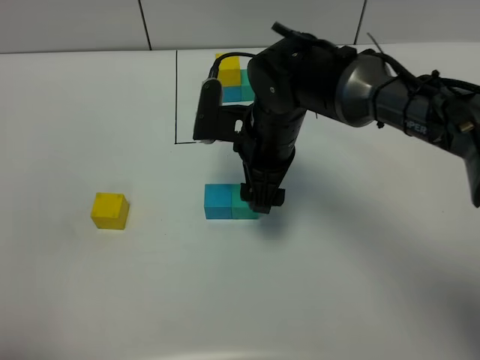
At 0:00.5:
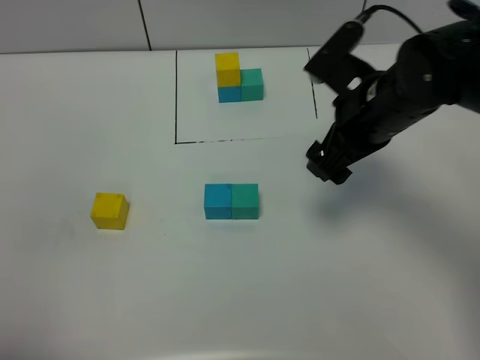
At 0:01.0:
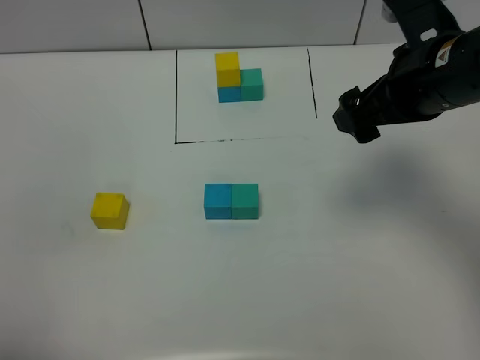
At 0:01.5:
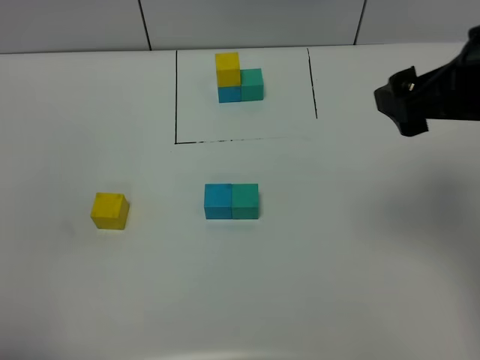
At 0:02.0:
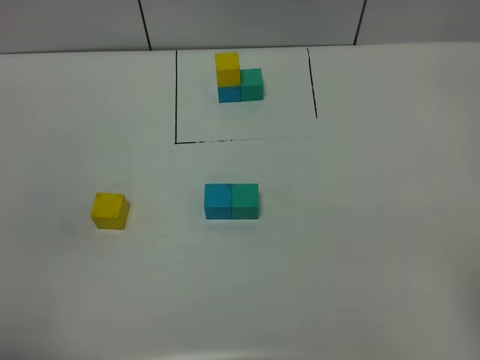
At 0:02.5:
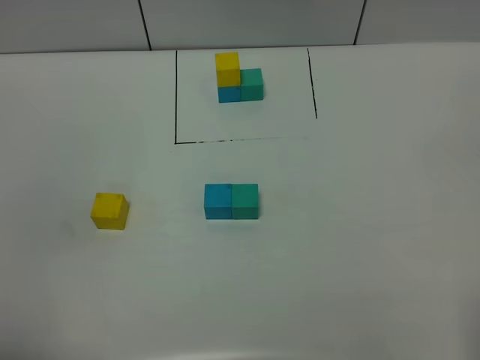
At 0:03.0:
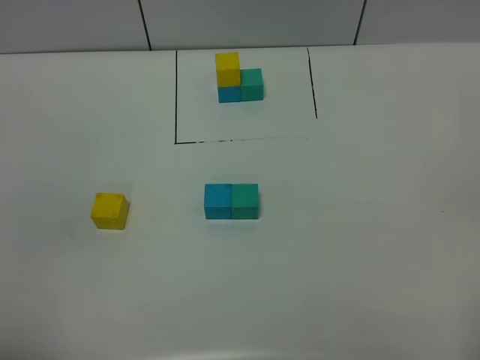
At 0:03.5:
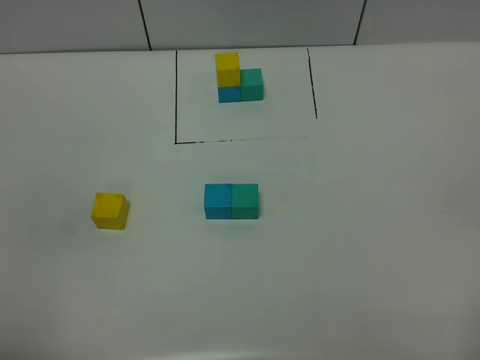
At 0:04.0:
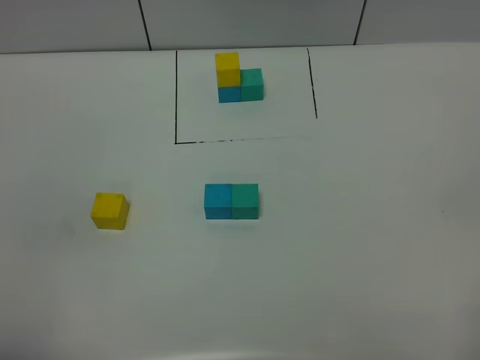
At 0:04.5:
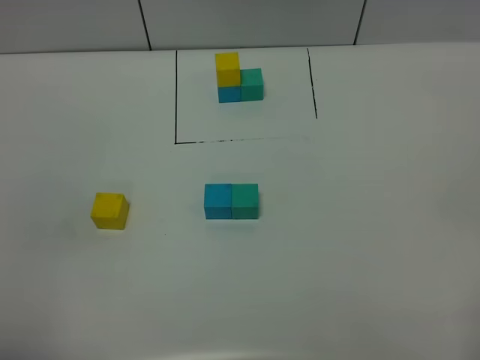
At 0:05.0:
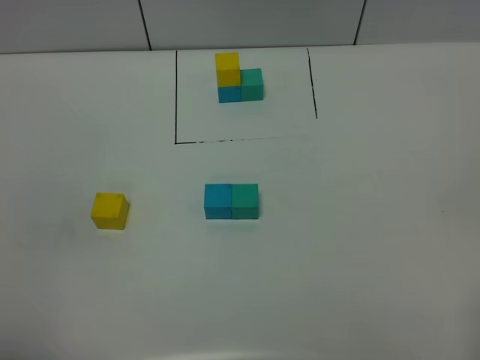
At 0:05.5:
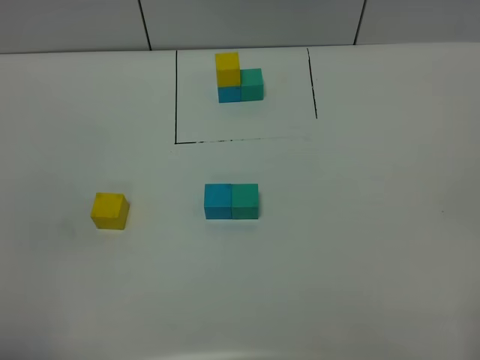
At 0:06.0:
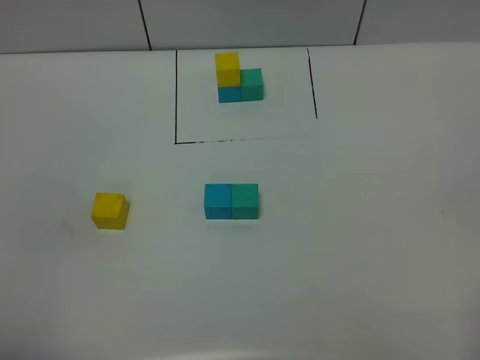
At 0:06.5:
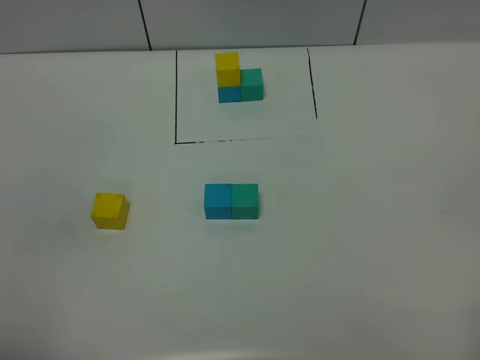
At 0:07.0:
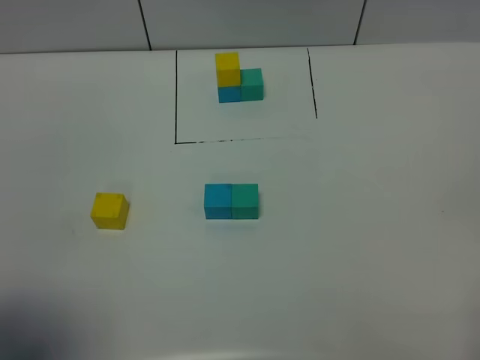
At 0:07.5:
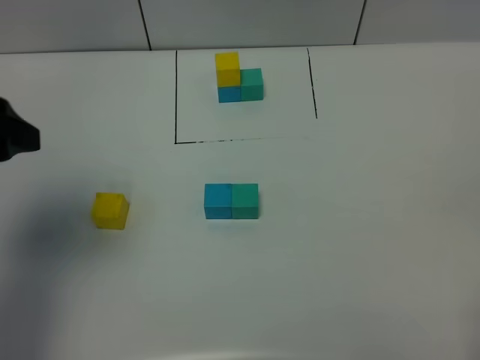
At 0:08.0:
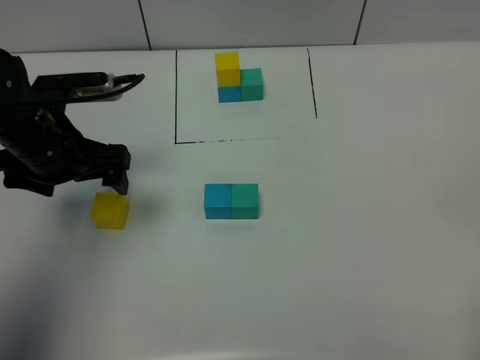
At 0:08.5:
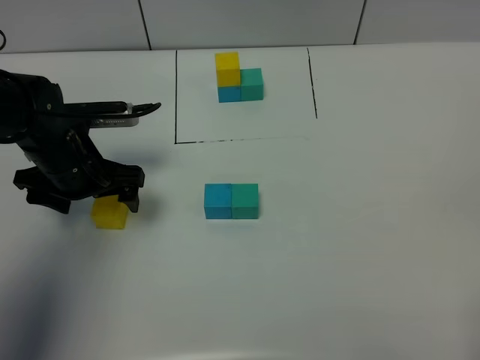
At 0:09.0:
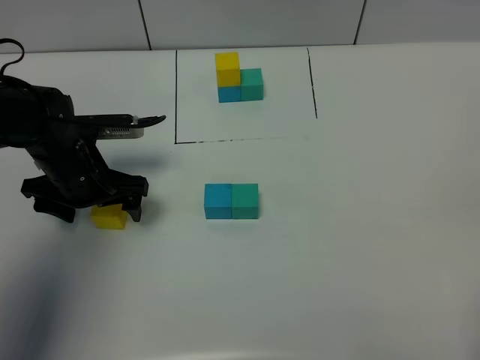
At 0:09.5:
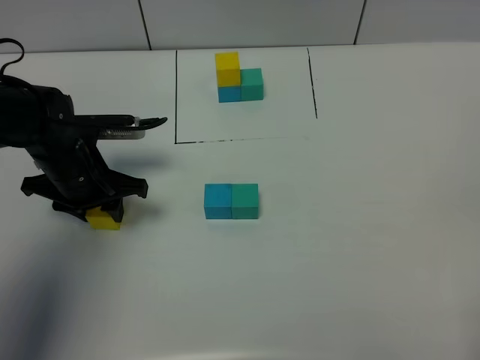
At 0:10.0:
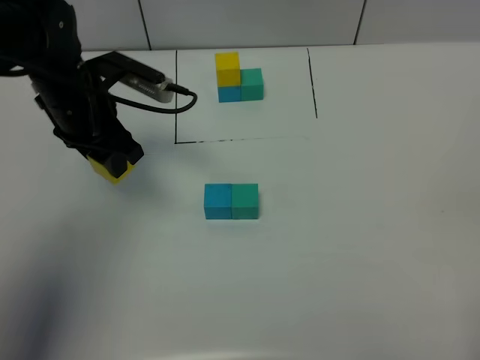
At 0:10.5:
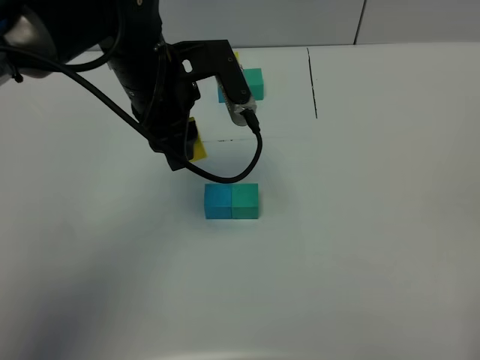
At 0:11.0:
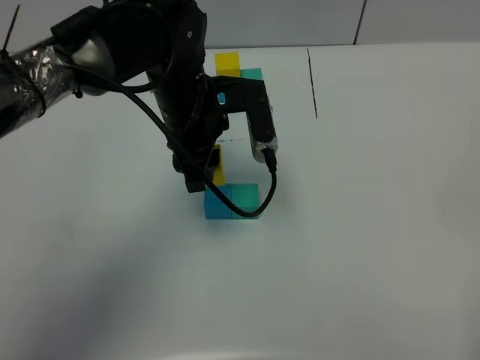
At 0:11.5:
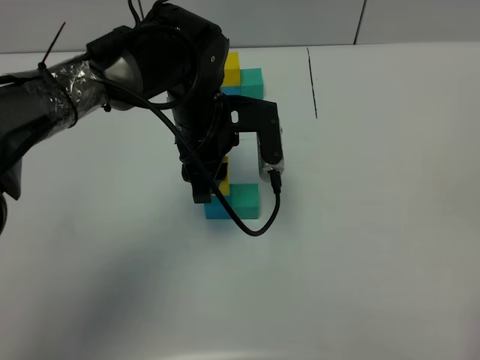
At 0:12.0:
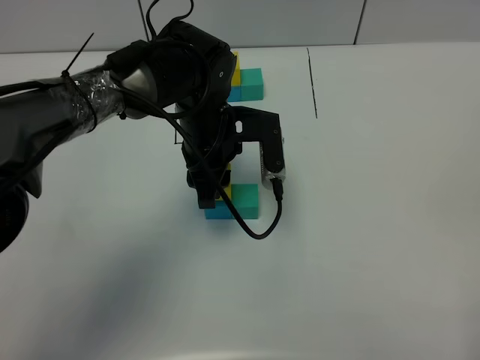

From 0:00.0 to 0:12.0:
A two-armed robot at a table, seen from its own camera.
Task of the whole recording: According to the building block template in front, assemble the scattered blocks together.
From 0:00.0 to 0:02.0: The right gripper is displaced backward, to the right and upward by approximately 40 cm.
From 0:06.0 to 0:08.0: The left gripper shifts approximately 30 cm forward.
From 0:08.0 to 0:10.0: The left gripper heads forward, covering roughly 5 cm, goes downward and returns, approximately 5 cm each way, and closes up.
From 0:10.0 to 0:12.0: The left gripper moves to the right, roughly 15 cm.

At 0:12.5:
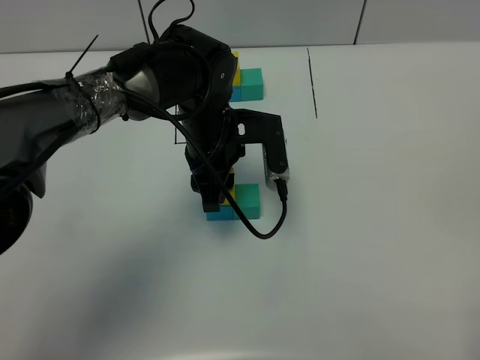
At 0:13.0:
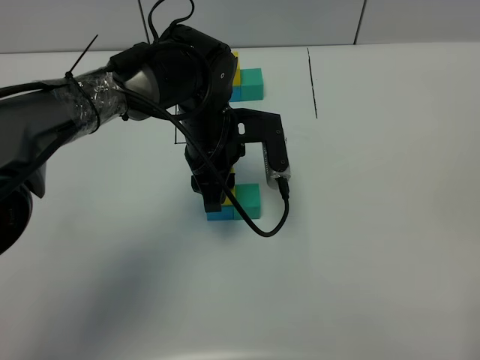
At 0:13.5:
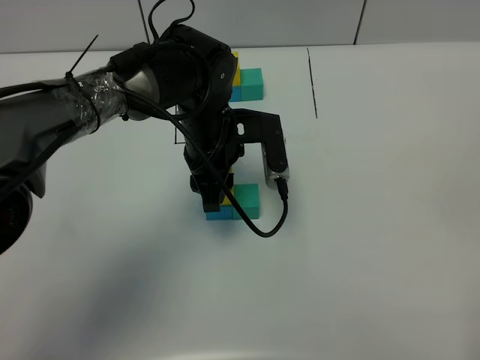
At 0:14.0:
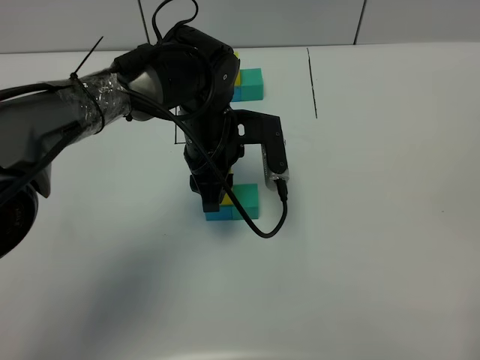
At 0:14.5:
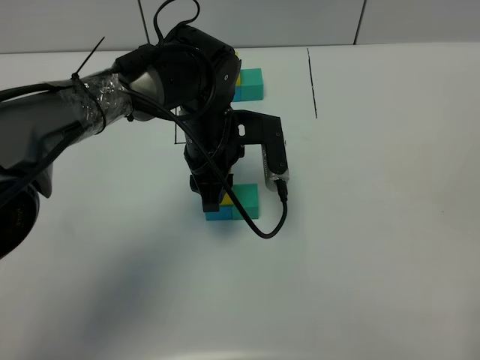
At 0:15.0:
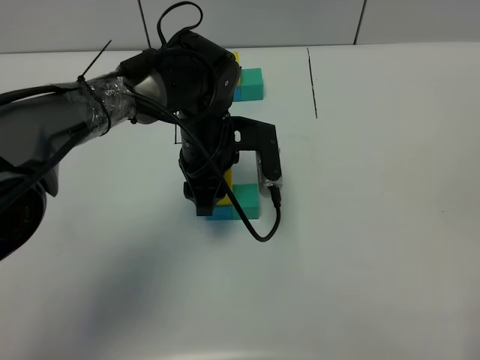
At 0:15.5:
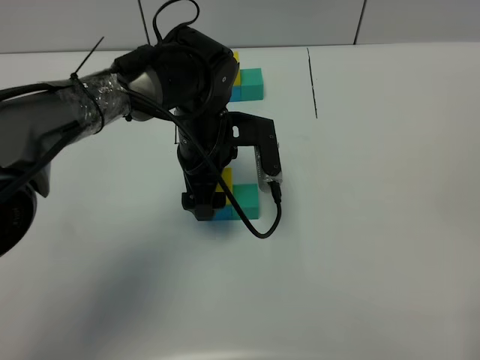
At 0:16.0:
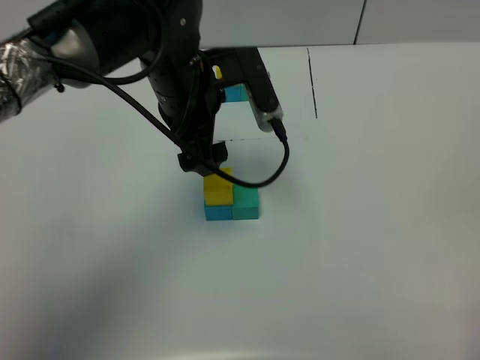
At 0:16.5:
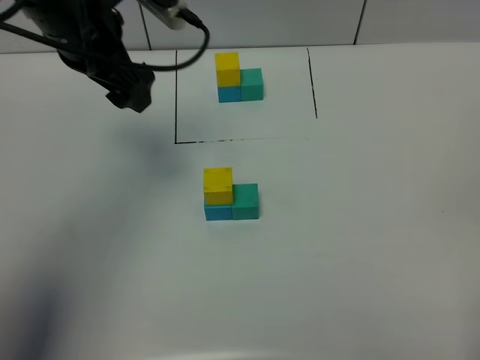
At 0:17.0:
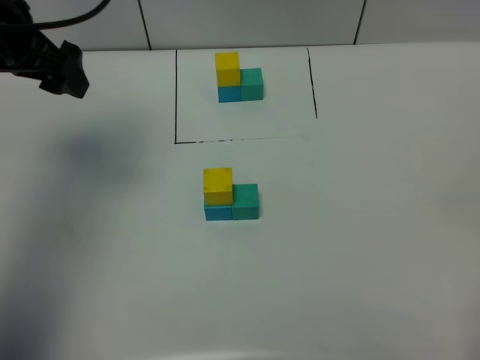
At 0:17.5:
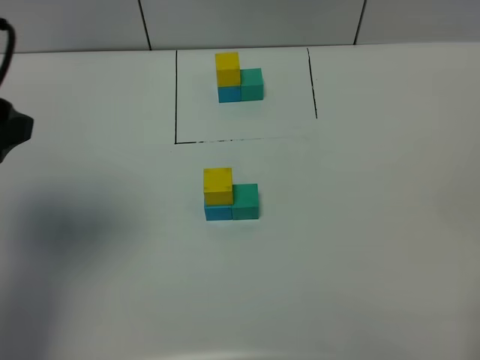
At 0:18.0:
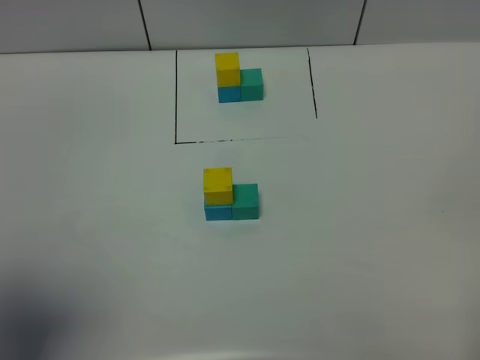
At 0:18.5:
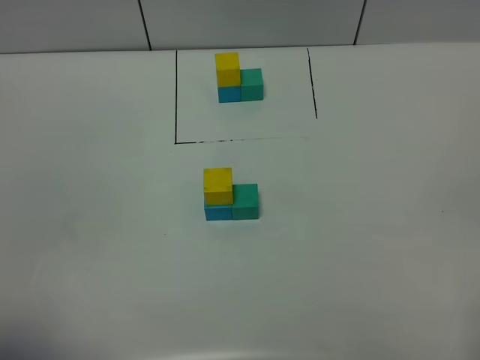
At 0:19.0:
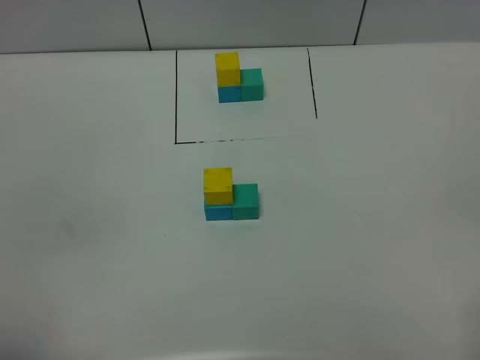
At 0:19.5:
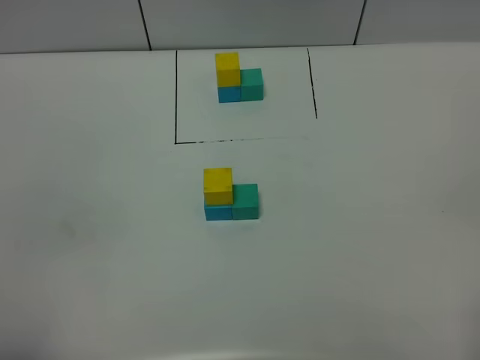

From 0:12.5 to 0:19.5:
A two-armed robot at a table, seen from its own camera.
Task of the whole recording: According to the building block template in front, assemble the scattered blocks together.
Step, from 0:12.5 to 0:15.0: Put the yellow build block on the blue build block.
From 0:12.5 to 0:14.5: Neither gripper changes place.
From 0:14.5 to 0:16.0: The left gripper moves upward, about 10 cm, and opens its fingers.
From 0:16.0 to 0:17.5: The left gripper is displaced to the left, backward and upward by some 25 cm.
From 0:17.5 to 0:19.5: The left gripper goes some 20 cm backward, and closes up.

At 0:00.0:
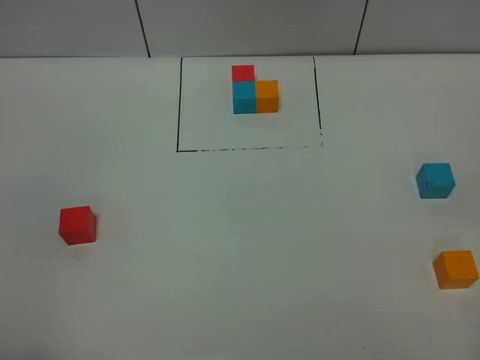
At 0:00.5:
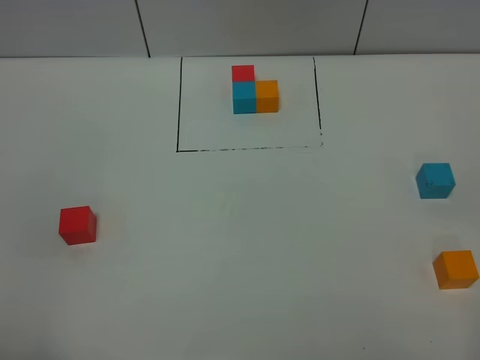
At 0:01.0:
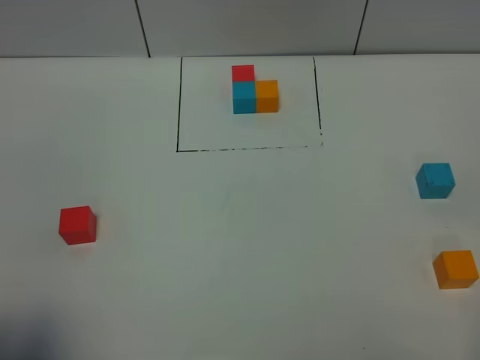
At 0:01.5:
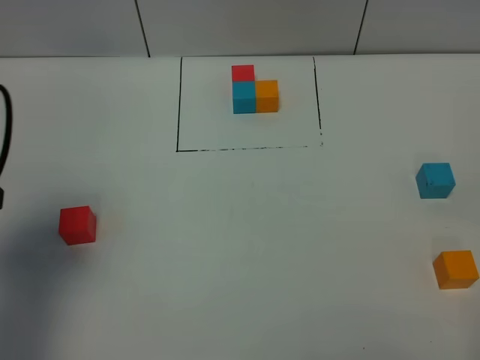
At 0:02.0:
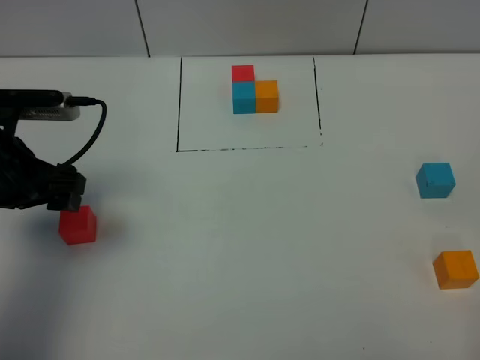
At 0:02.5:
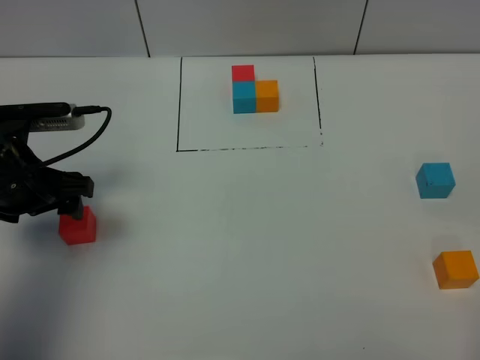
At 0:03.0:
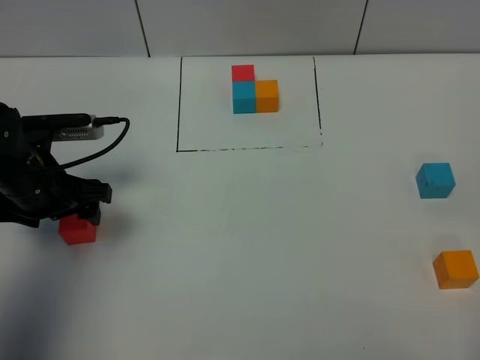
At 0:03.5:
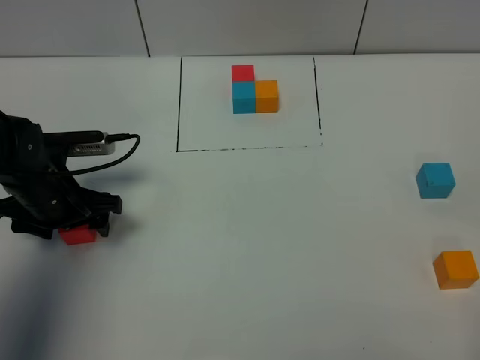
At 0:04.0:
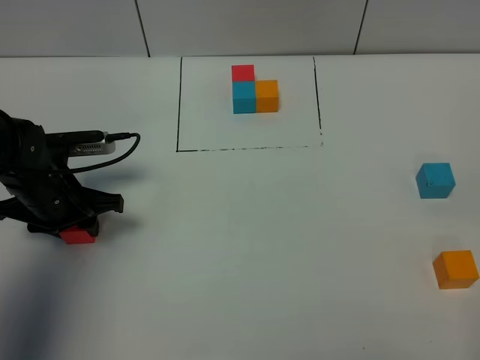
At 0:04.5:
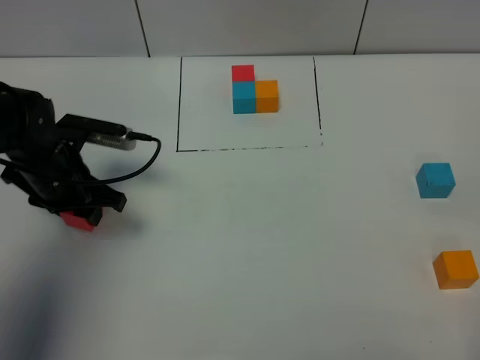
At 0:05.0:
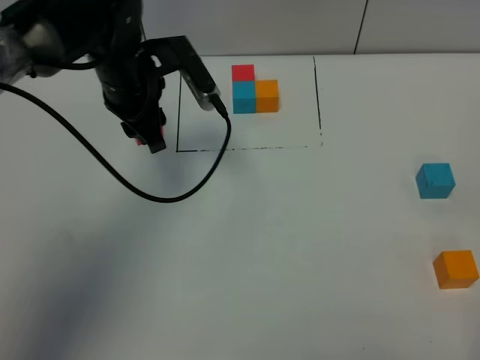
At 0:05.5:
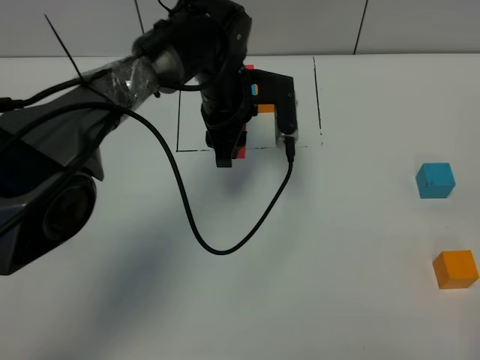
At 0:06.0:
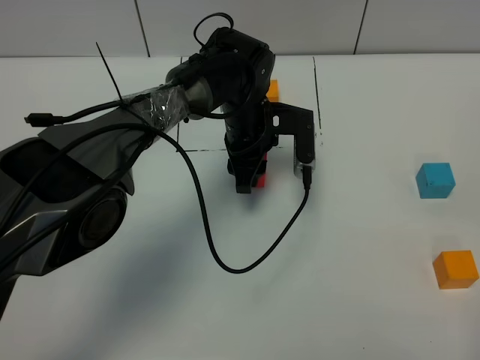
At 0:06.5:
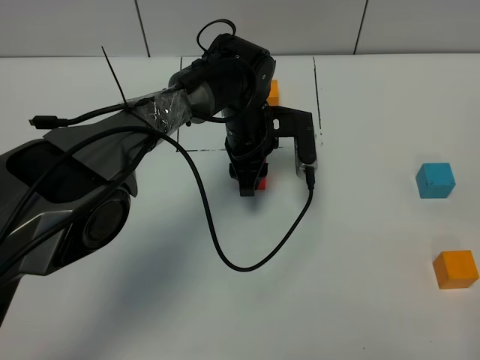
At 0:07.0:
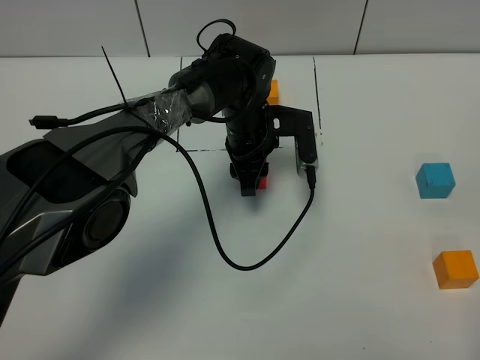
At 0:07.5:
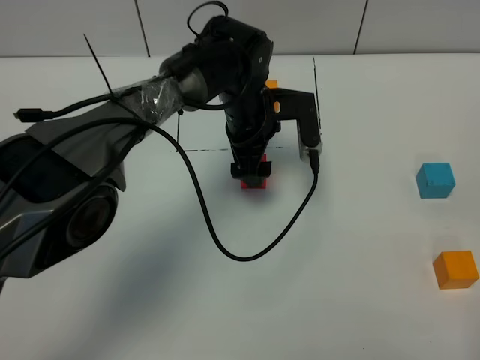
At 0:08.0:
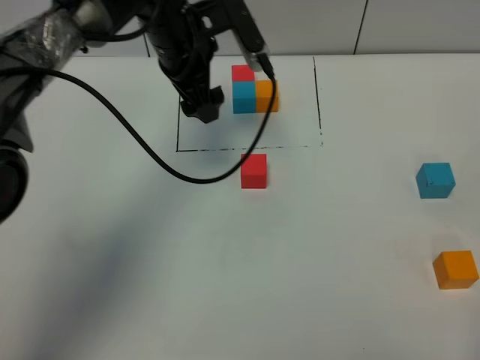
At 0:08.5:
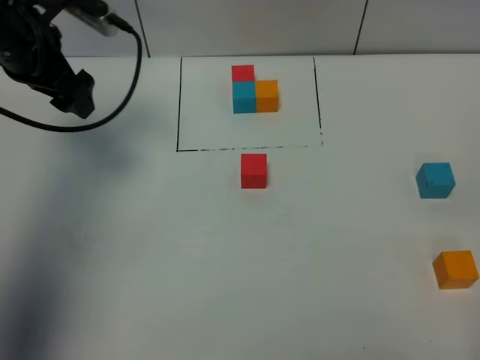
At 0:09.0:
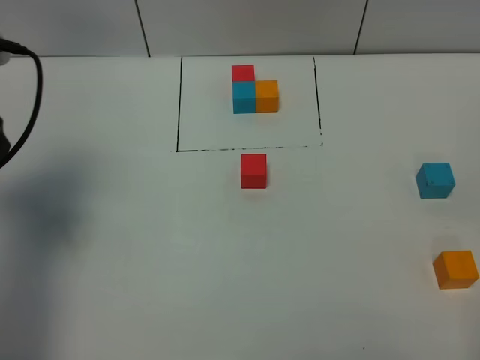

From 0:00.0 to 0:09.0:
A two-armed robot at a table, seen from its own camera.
Task of the whole recording: According to the building block template in front, assemble the scattered blocks together.
Step, from 0:00.0 to 0:07.0: Put the red build block in the center of the table.
From 0:00.0 to 0:02.0: The left gripper moves forward, about 30 cm.
From 0:02.0 to 0:04.5: The left gripper shifts some 10 cm downward and forward, and closes its fingers.
From 0:04.5 to 0:07.0: The left gripper goes approximately 25 cm to the right.
From 0:07.0 to 0:09.0: The left gripper travels to the left, upward and backward by roughly 40 cm, and opens up.
